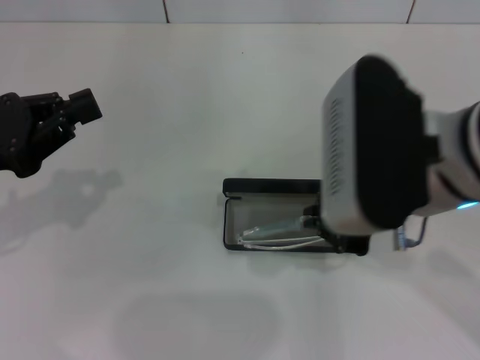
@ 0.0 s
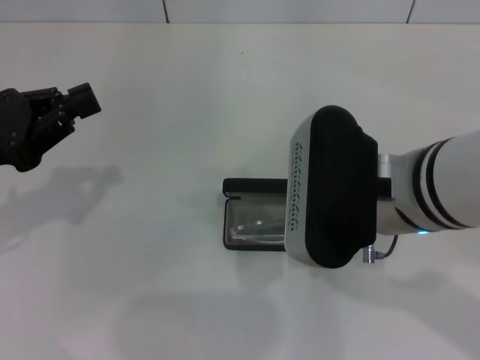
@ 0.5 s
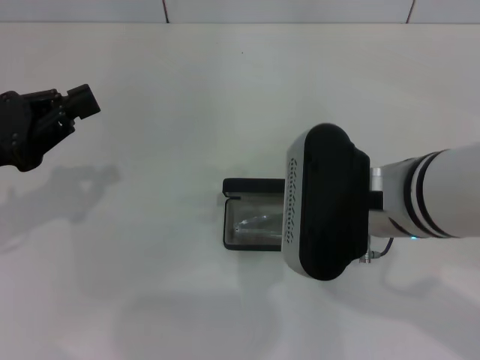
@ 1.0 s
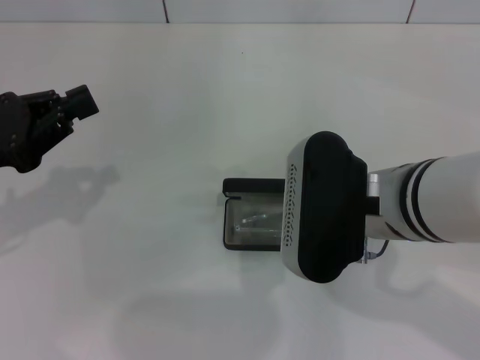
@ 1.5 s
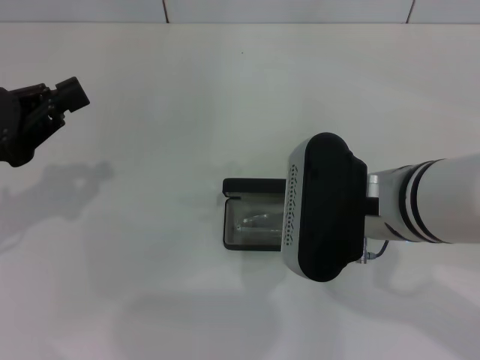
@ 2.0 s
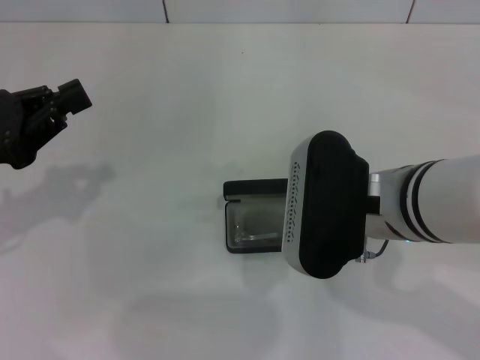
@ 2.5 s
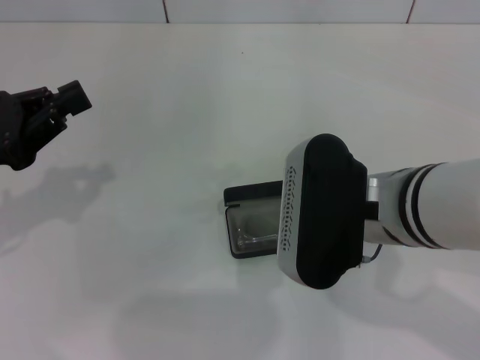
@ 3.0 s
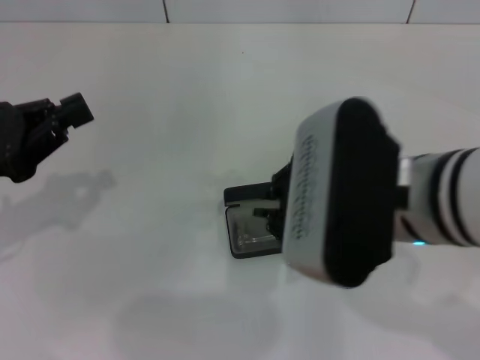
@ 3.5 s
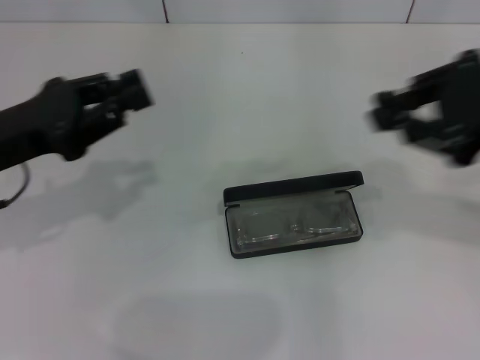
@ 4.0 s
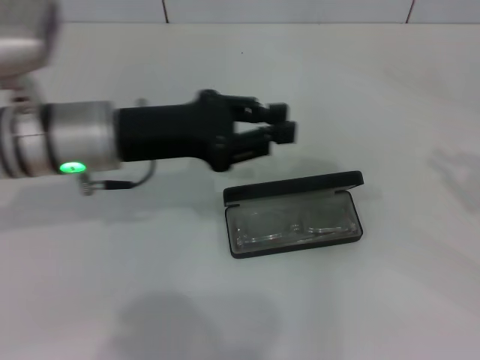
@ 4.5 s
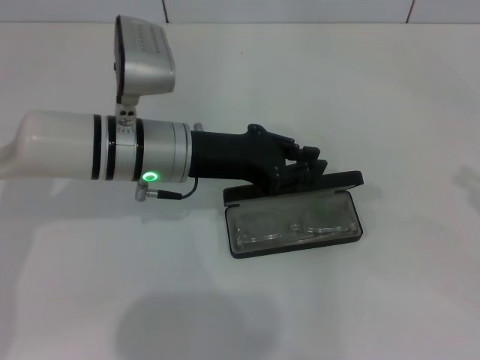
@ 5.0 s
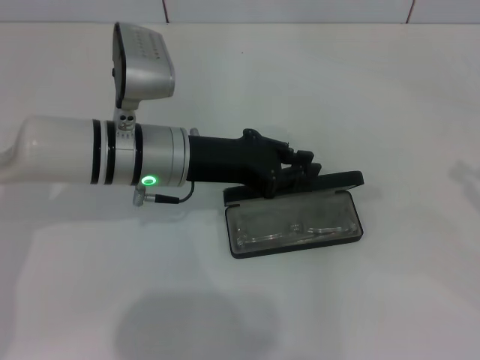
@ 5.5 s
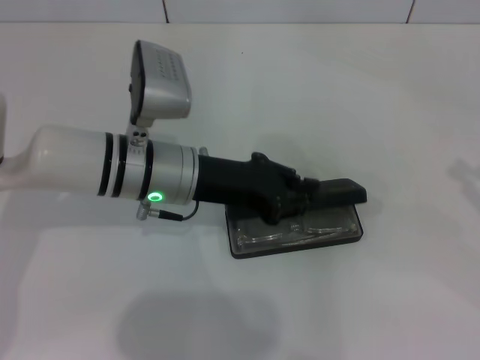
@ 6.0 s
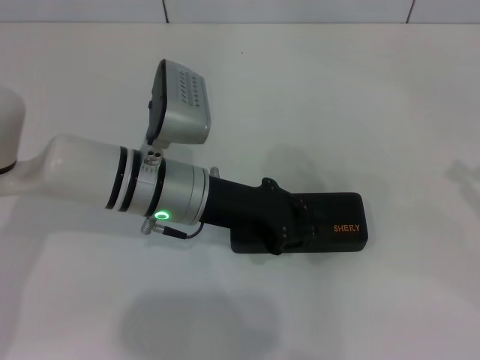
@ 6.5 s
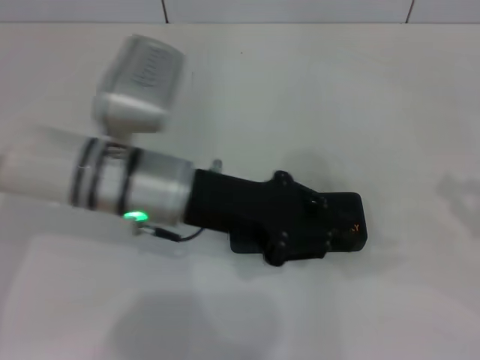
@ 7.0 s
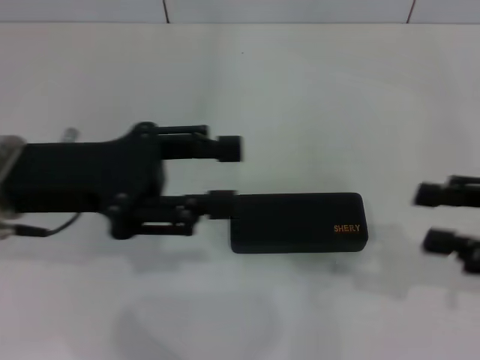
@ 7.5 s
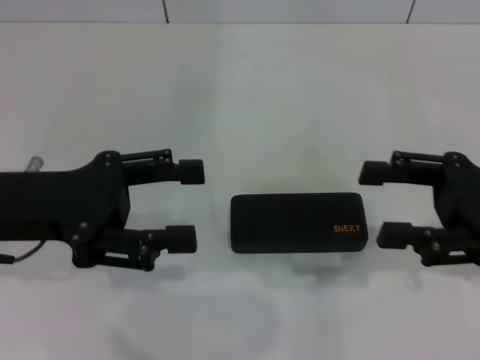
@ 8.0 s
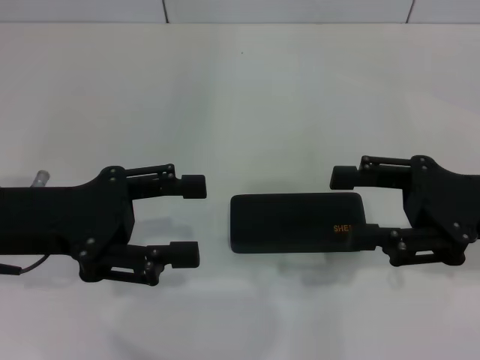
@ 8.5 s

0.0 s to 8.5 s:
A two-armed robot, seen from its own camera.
Step, 0.0 to 3.0 s: Put the glasses into the case with your right hand.
Step, 3.5 to 7.0 s: Close the glasses case with your left hand.
0.0 to 2.0 s: The right gripper goes roughly 5 cm downward.
2.0 to 4.0 s: The right gripper is displaced to the right and upward by some 20 cm.
4.0 to 6.5 s: The right gripper goes roughly 20 cm to the right and downward. The left gripper travels to the right by approximately 15 cm.
6.5 to 8.5 s: The left gripper goes some 15 cm to the left, backward and upward, and opens up, while the right gripper goes some 15 cm to the left, and opens its fingers.
